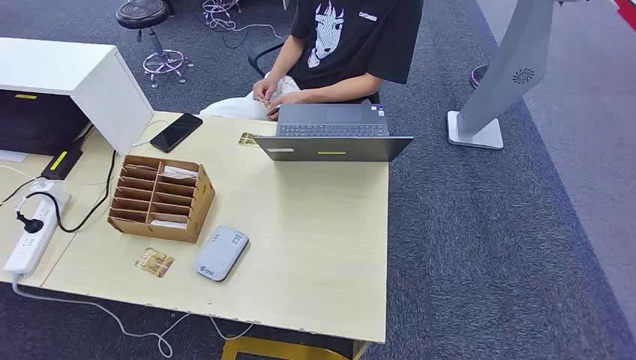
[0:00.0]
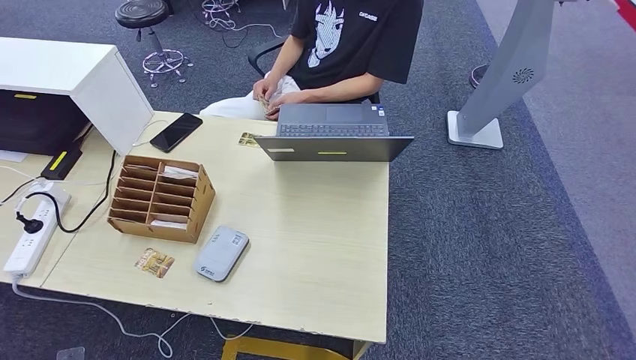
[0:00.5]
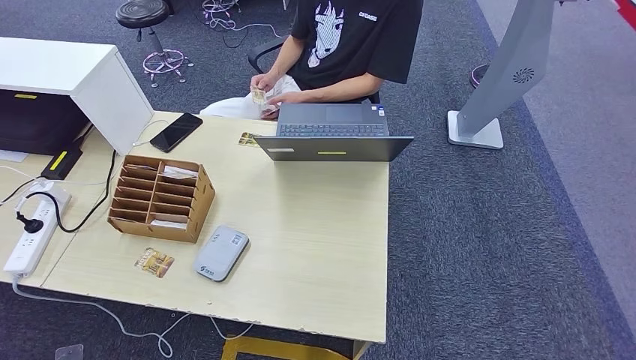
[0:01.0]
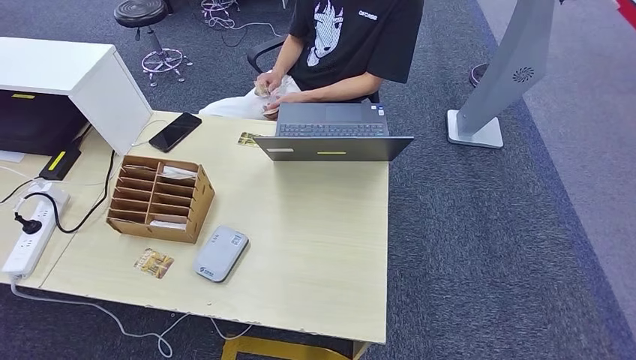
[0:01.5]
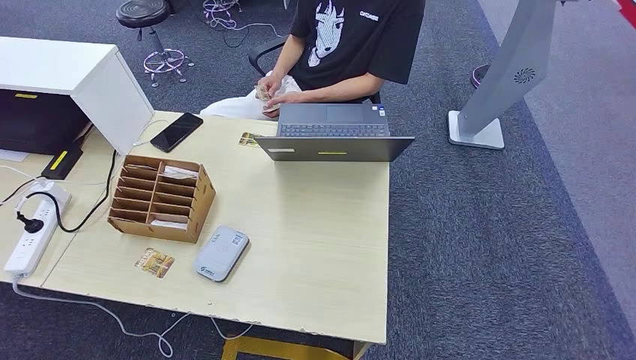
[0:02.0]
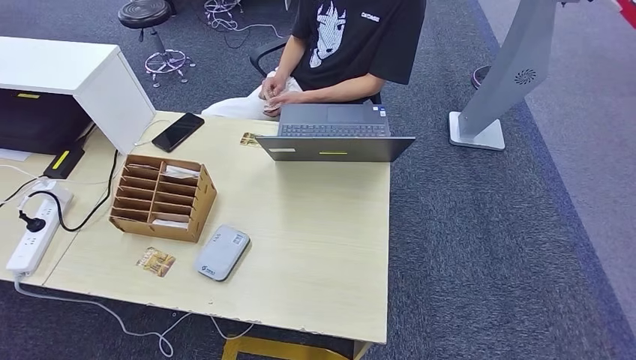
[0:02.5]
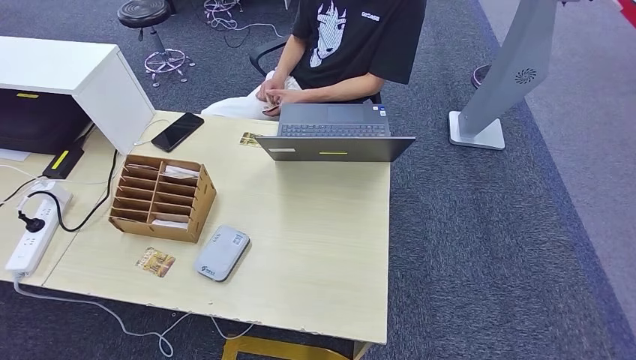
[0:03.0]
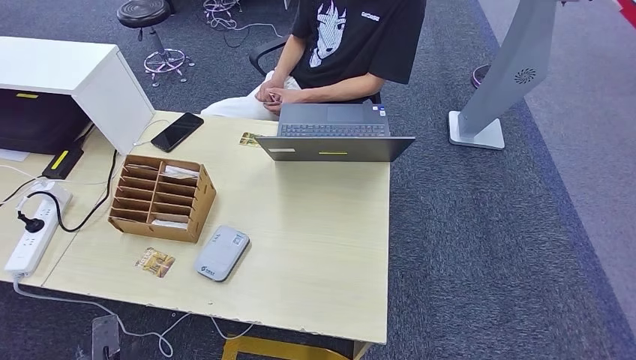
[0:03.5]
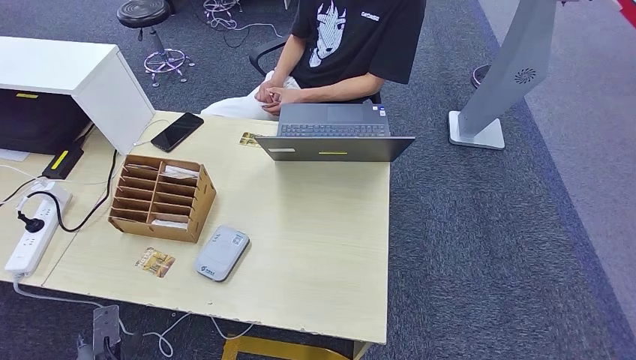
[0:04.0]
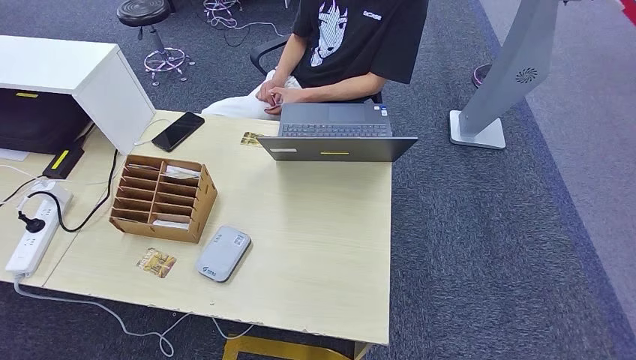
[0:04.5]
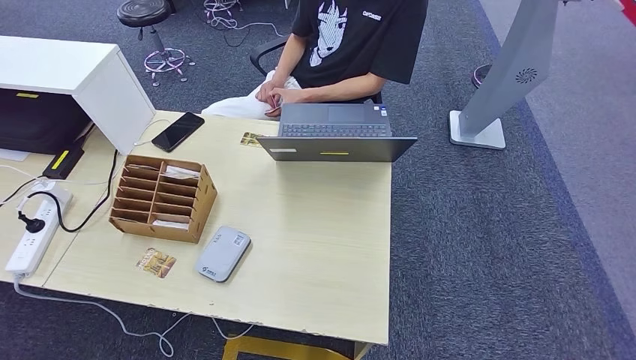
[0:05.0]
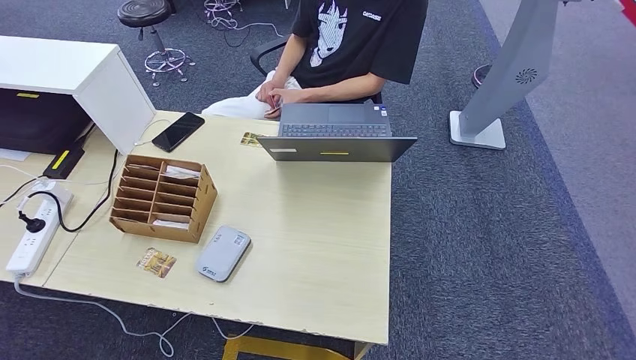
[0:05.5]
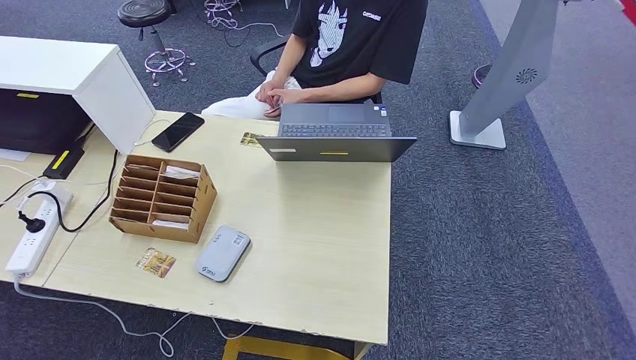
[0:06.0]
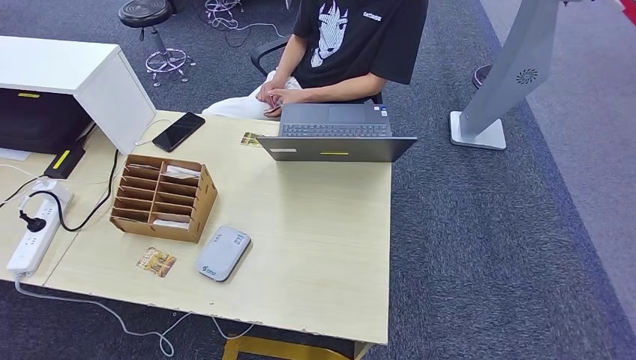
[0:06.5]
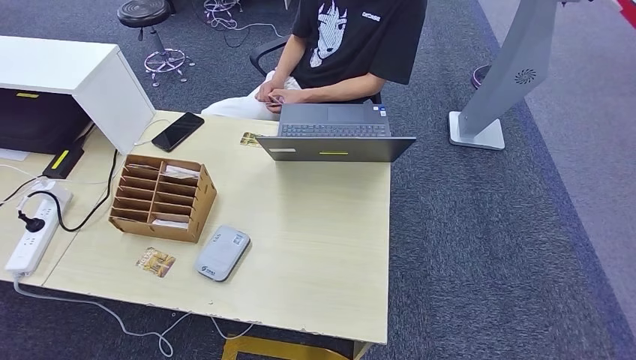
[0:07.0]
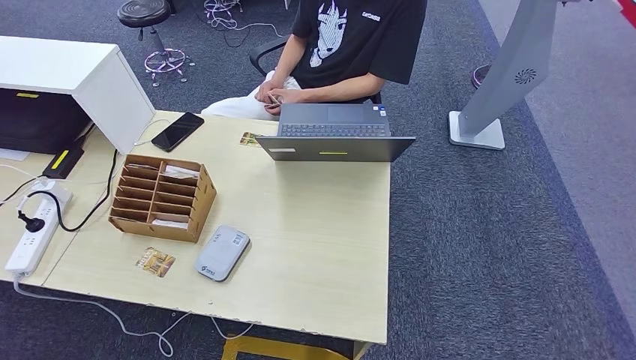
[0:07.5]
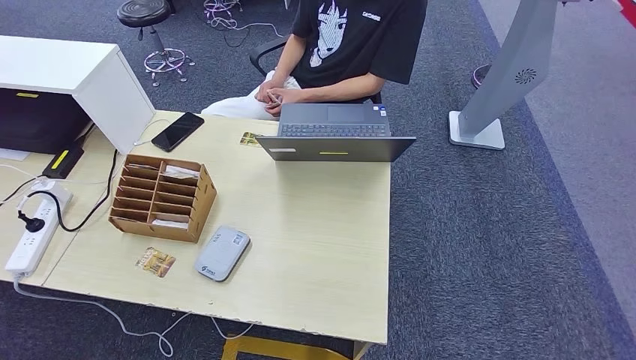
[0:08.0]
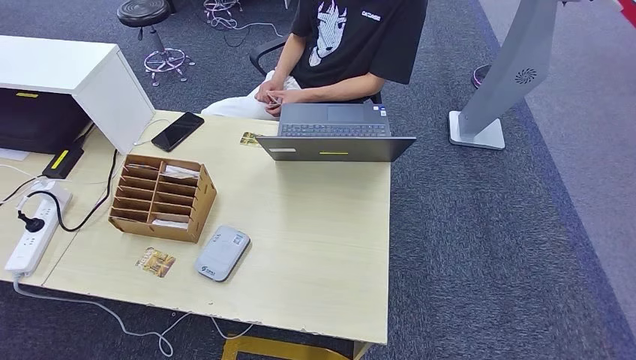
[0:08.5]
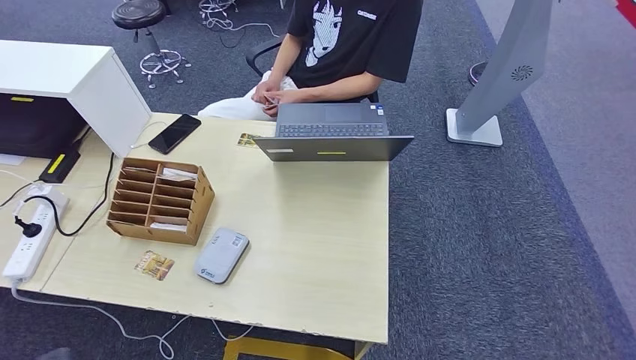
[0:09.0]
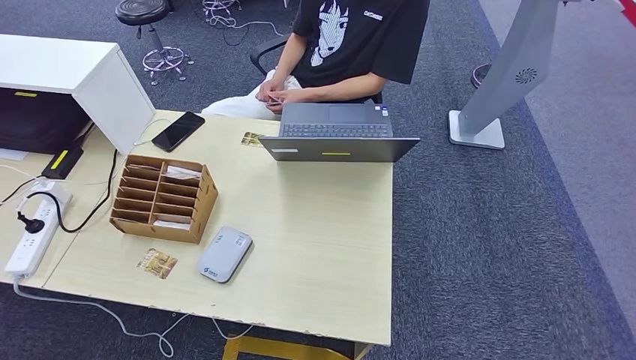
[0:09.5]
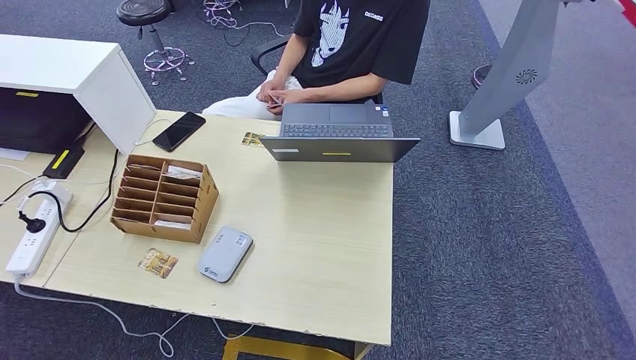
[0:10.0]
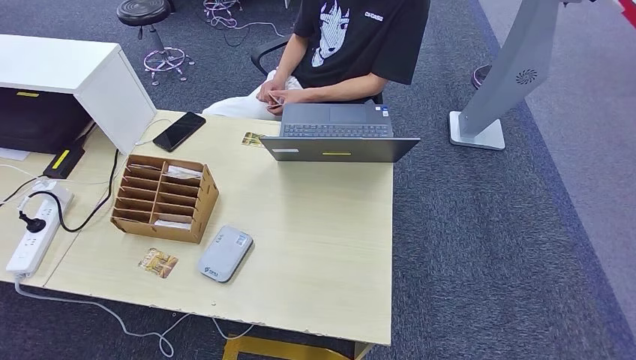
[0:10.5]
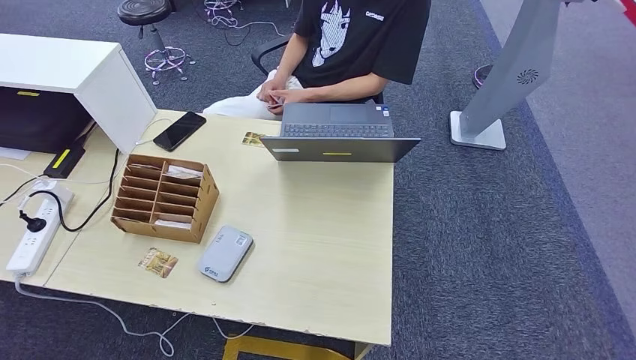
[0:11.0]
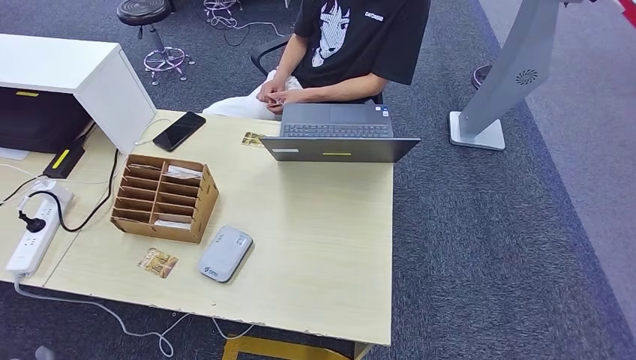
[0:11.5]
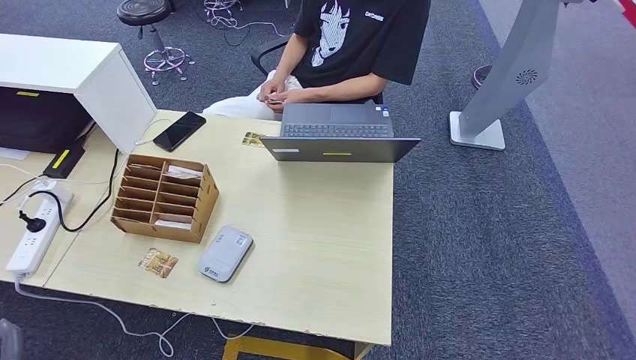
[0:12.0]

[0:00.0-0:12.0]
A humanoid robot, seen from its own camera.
0:02.0 to 0:04.0: The left hand shifts about 15 cm forward.
0:04.0 to 0:06.0: The left hand travels backward and to the right by approximately 25 cm.
0:08.0 to 0:10.0: The left hand moves to the right, approximately 30 cm.

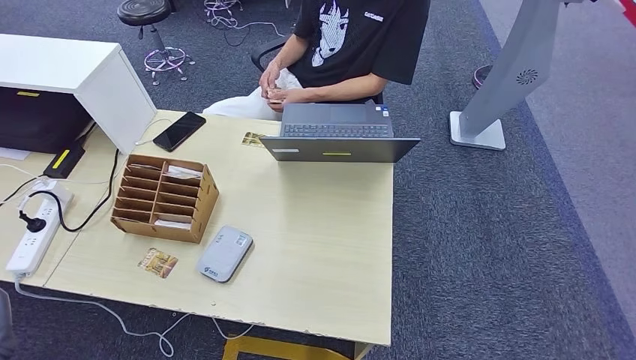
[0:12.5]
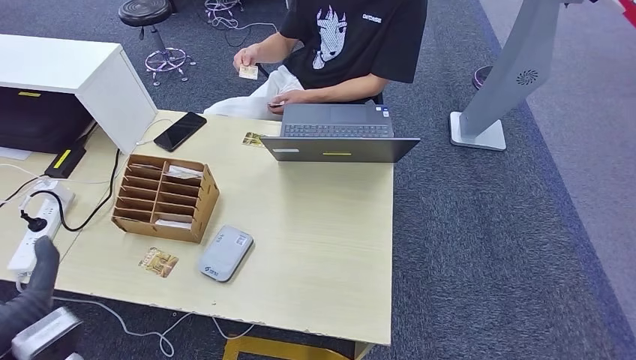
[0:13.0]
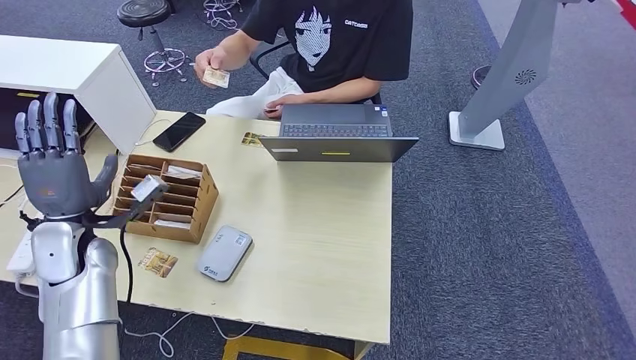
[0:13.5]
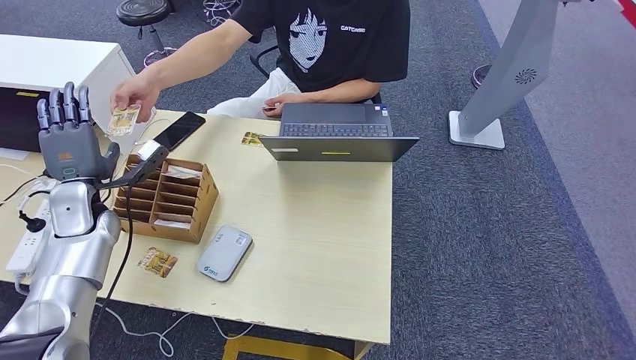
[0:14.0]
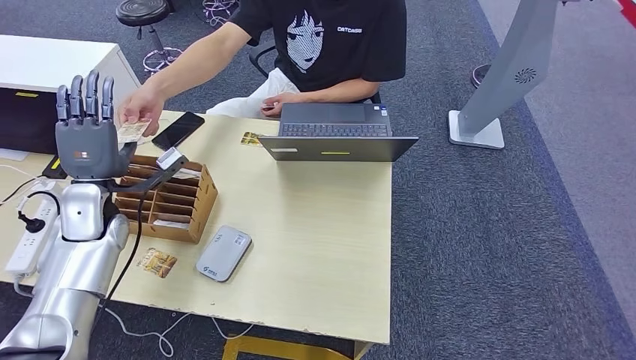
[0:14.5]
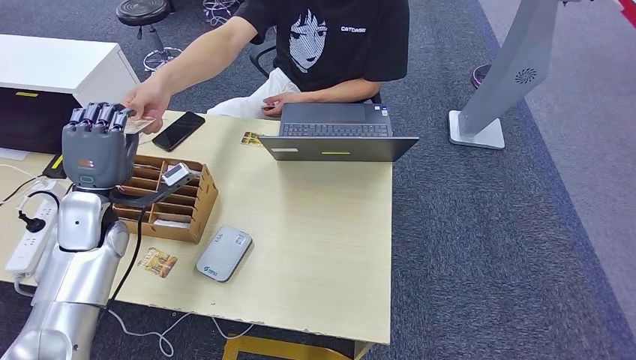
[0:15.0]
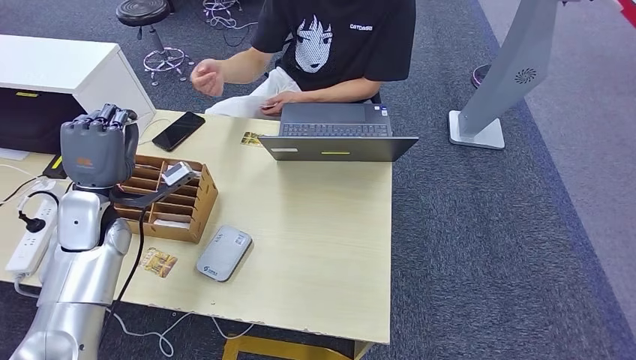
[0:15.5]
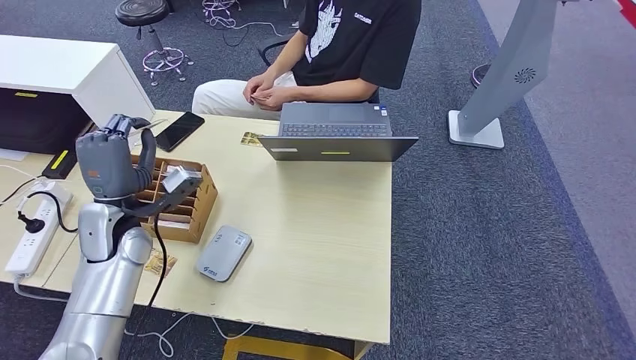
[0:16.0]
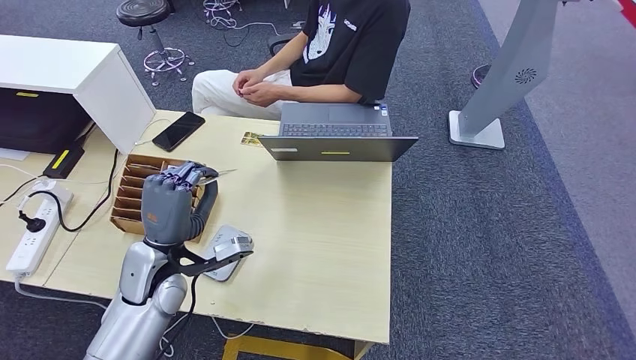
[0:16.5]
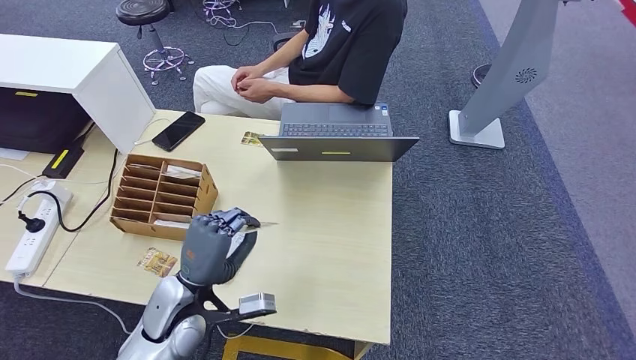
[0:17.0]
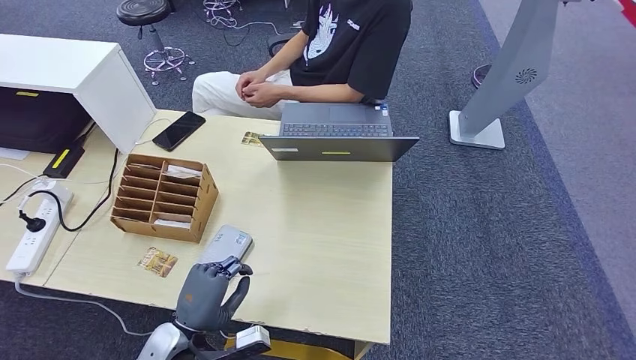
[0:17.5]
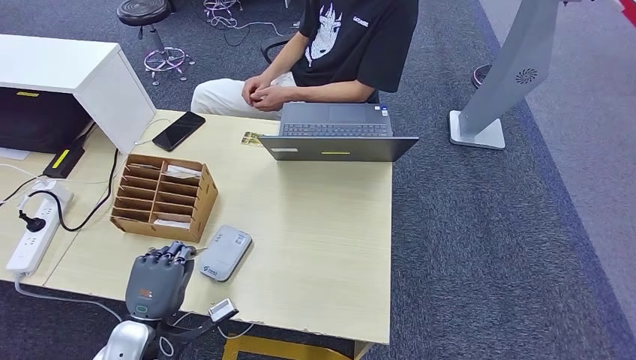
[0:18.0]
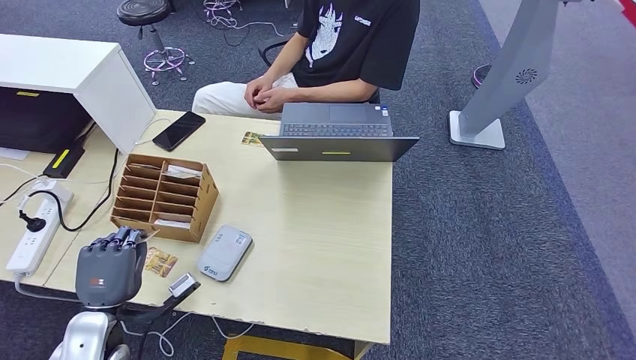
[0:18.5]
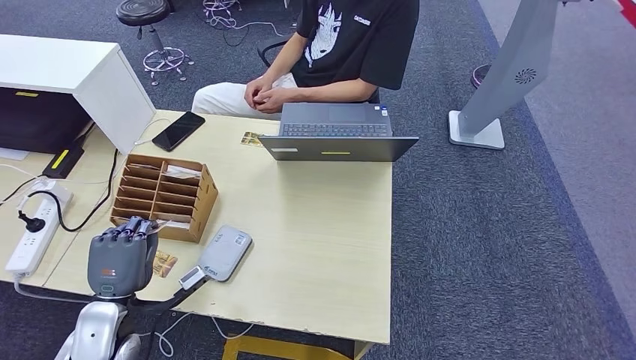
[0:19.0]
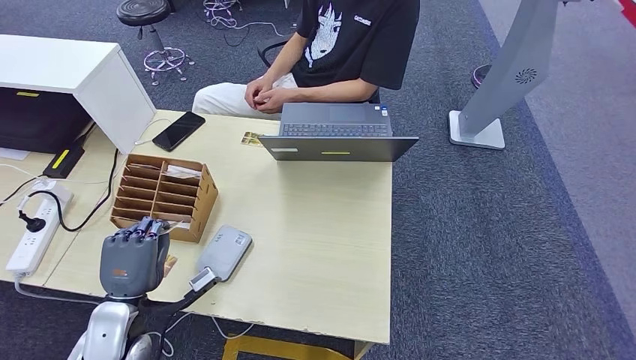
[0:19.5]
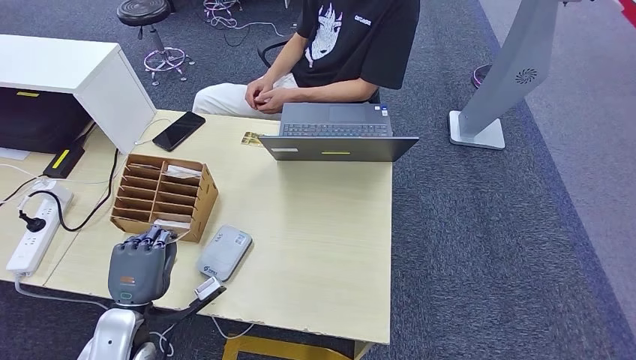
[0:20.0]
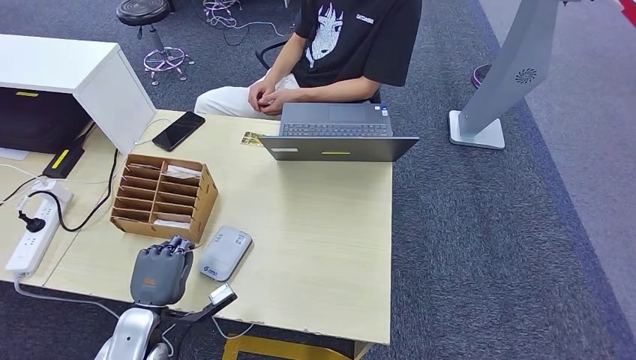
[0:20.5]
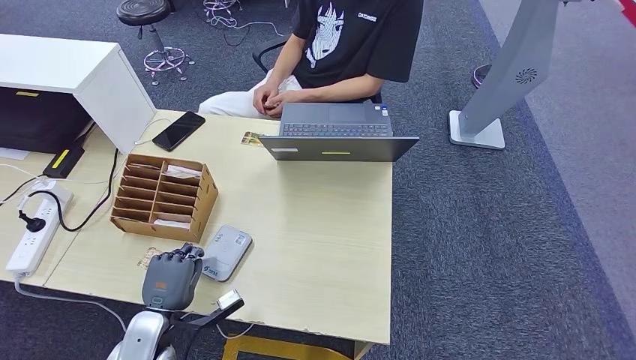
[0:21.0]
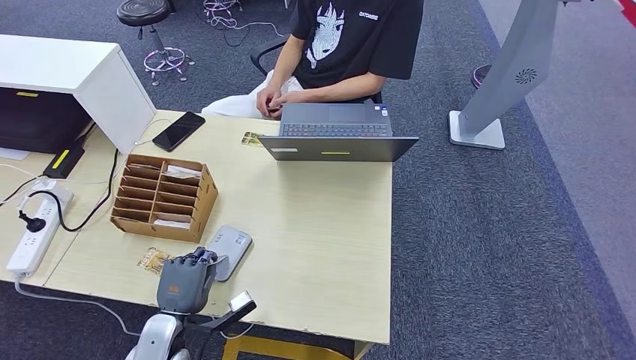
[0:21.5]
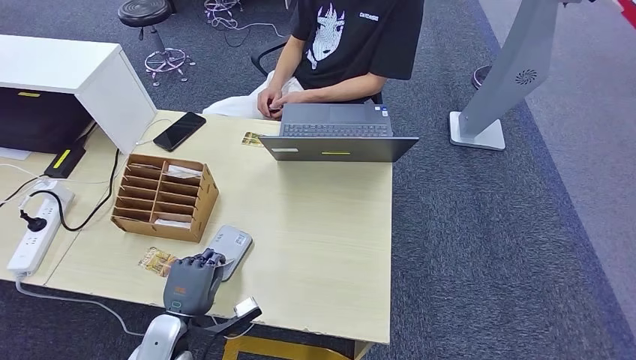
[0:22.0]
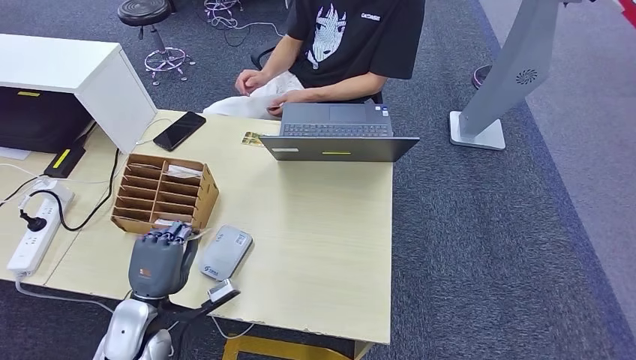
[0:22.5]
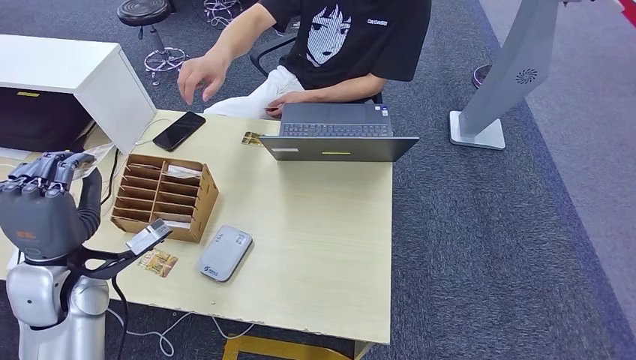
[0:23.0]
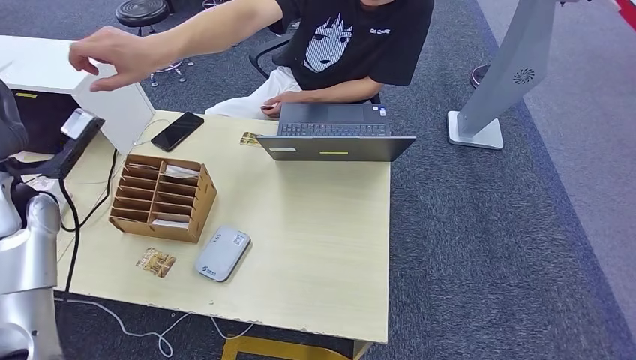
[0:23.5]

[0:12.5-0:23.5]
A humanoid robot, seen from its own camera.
Step, 0:12.5 to 0:17.0: Take the ID card from the person's hand.
Step, 0:17.5 to 0:21.5: Place the ID card on the card reader.
0:12.5 to 0:14.5: The left hand goes some 25 cm forward.
0:14.5 to 0:16.0: The left hand shifts by roughly 5 cm.
0:16.0 to 0:18.0: The left hand heads backward and downward, covering about 20 cm.
0:20.0 to 0:21.5: The left hand heads downward, covering roughly 5 cm.
0:21.5 to 0:23.5: The left hand moves upward, to the left and forward, about 35 cm.
